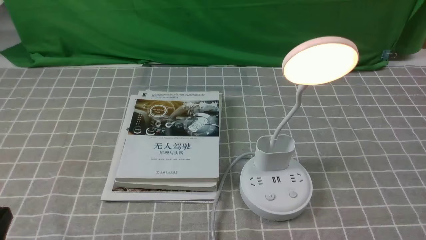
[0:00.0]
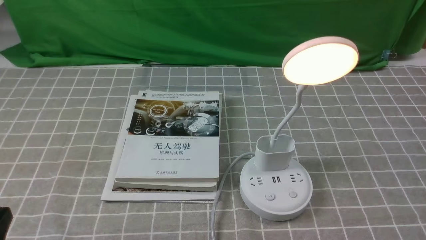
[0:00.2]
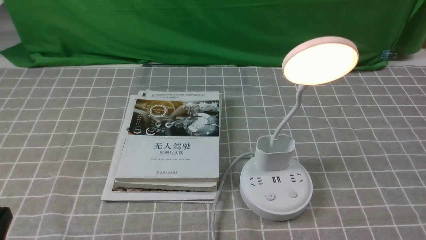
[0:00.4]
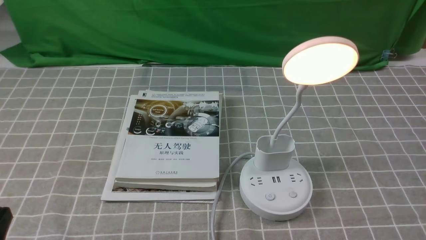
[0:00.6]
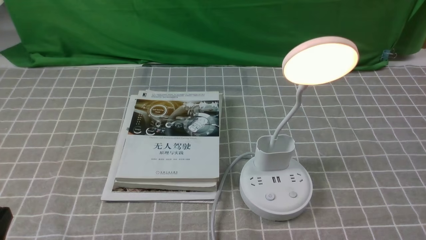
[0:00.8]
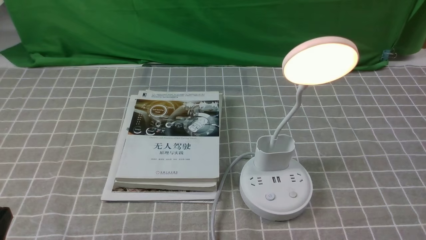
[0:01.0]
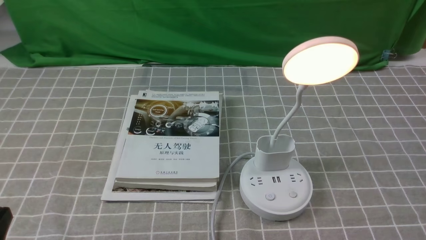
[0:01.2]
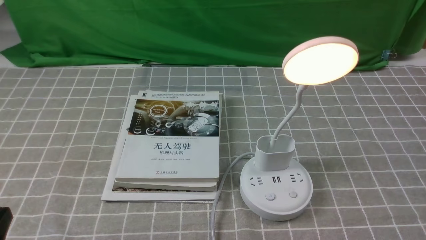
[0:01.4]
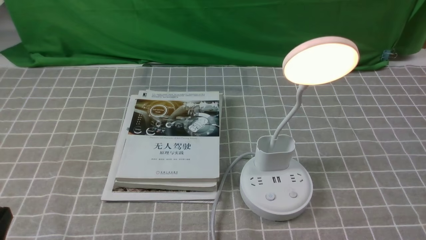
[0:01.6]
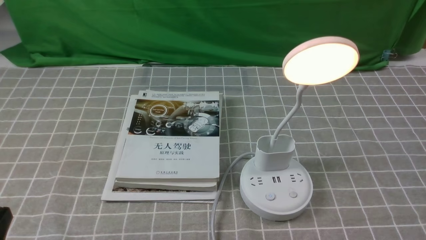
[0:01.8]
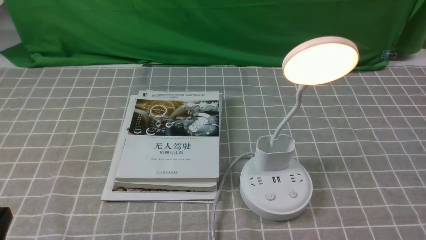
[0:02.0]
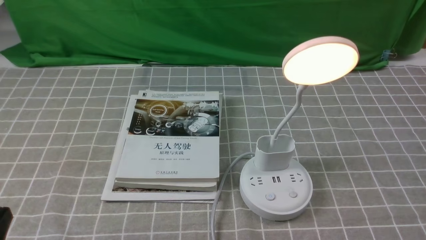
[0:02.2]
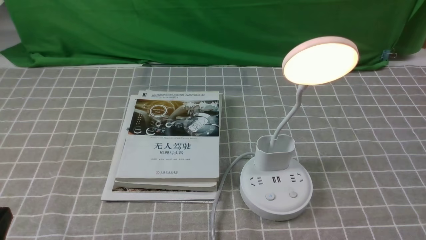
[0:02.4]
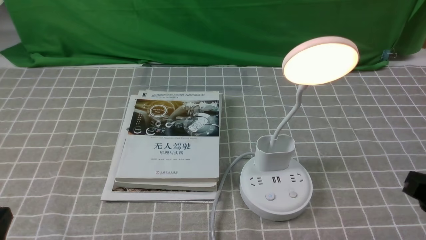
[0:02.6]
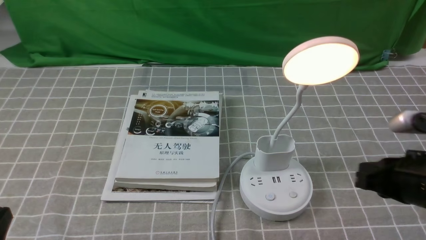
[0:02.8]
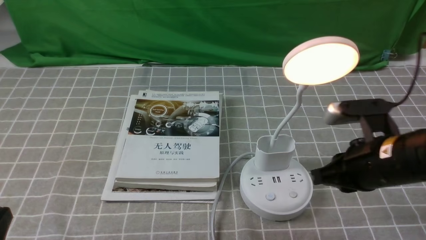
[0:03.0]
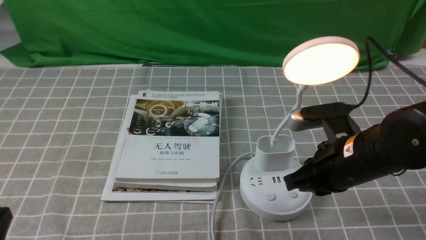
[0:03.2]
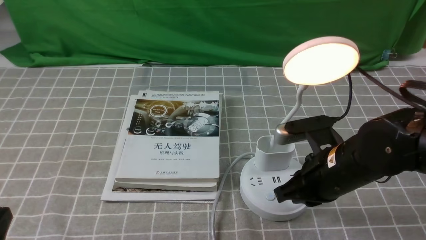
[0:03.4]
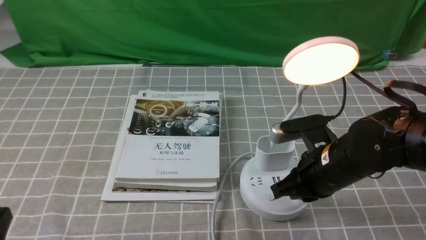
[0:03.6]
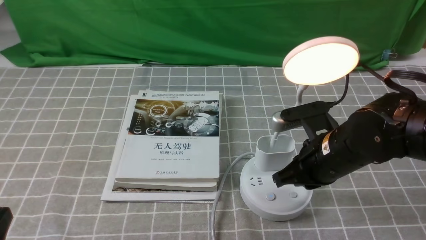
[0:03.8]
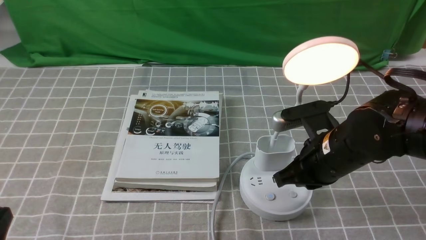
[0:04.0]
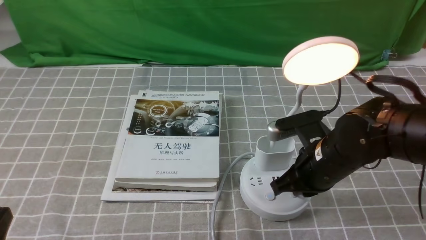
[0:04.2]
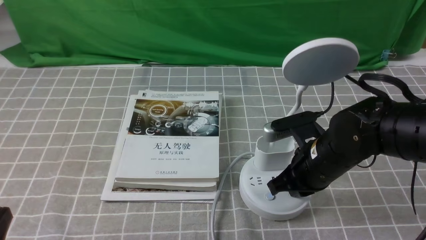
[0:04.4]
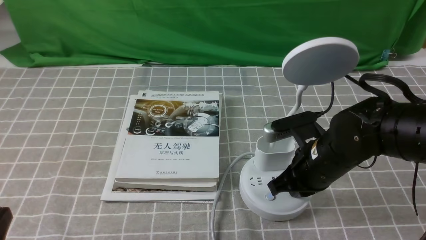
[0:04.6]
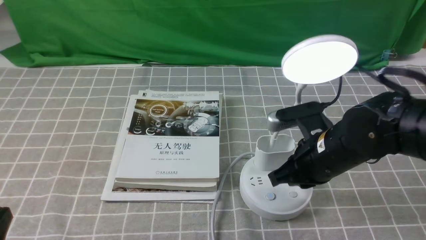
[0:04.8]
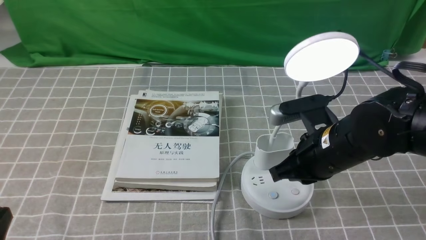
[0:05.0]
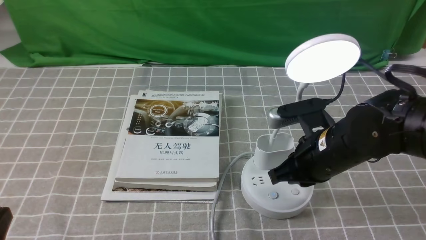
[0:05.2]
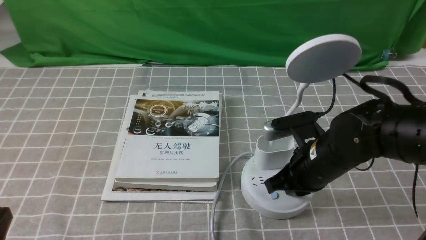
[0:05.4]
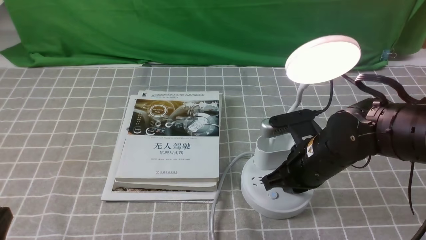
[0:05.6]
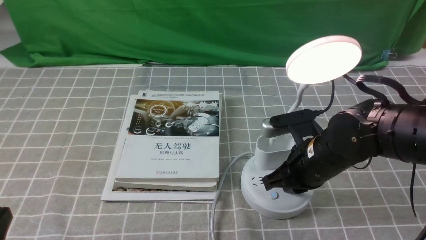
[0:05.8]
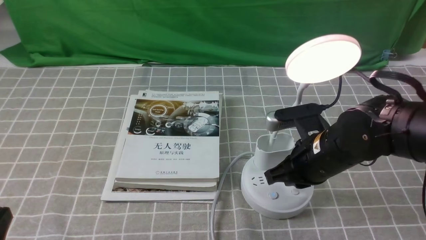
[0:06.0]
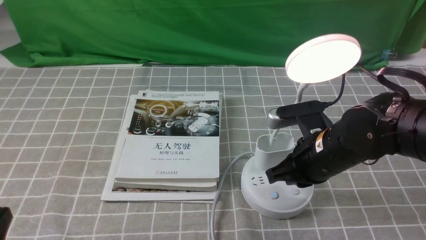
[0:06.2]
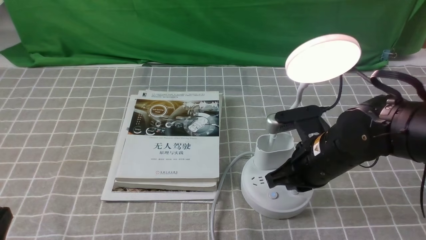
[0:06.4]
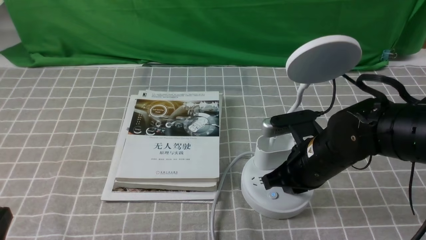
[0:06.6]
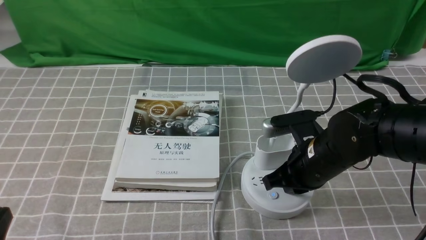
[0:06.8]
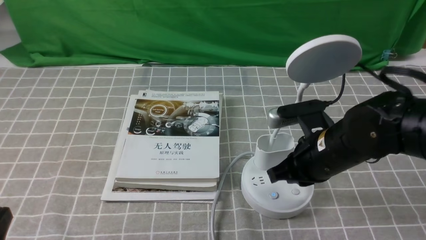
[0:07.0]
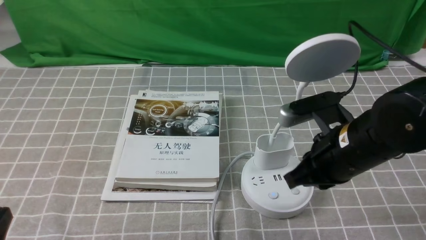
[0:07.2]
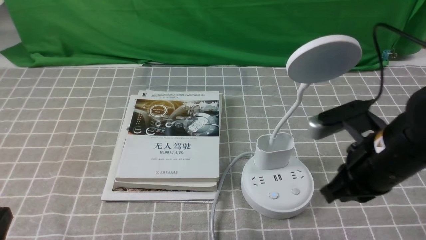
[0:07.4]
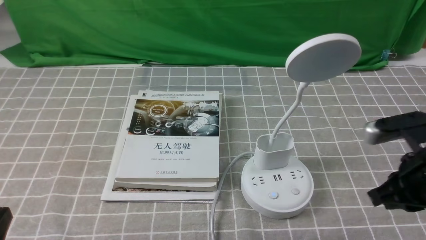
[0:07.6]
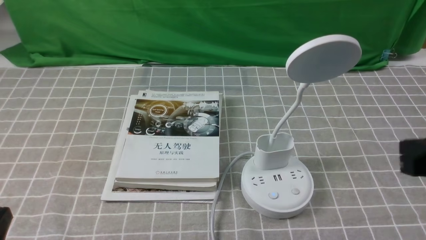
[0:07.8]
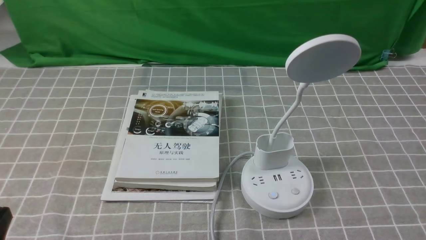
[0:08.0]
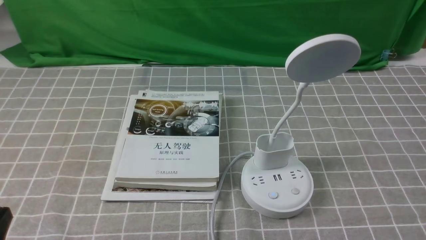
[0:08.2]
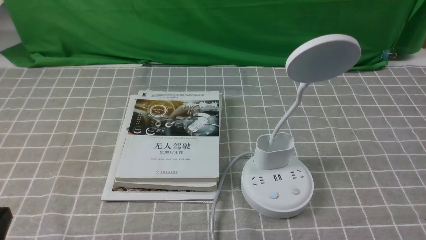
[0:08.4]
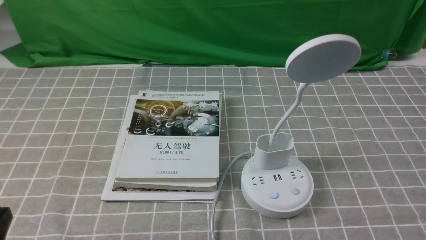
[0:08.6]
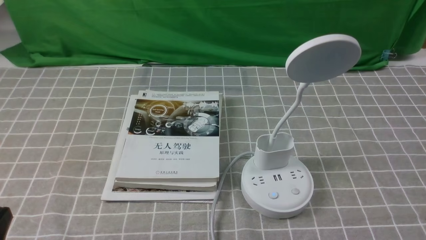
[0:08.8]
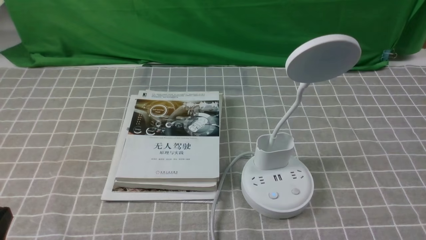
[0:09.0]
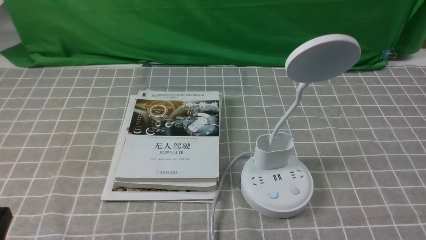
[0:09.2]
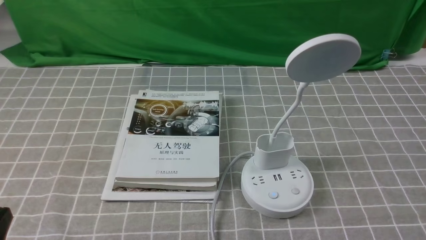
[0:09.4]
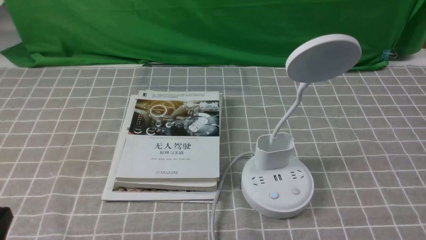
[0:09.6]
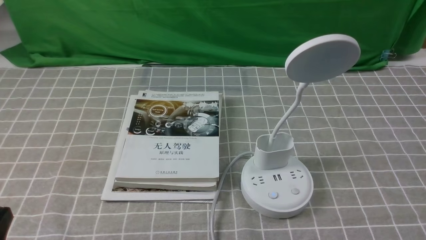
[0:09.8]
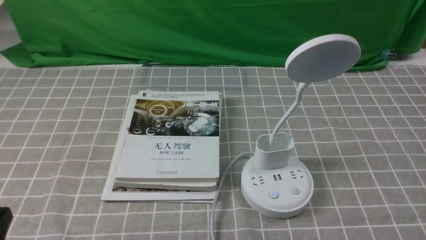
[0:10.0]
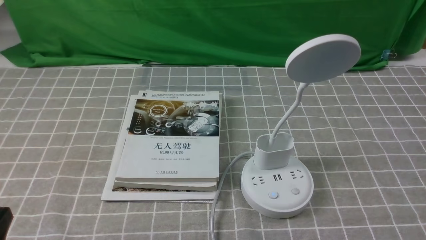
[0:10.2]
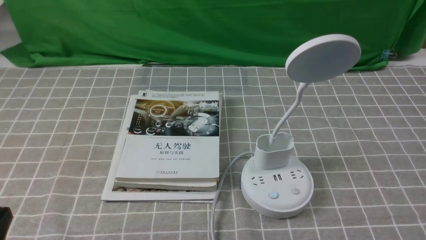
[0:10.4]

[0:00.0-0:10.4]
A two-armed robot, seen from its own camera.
Task of the whole recording: turn off the desk lamp on the grey coffee tablecloth by hand.
Step, 0:00.0 to 0:06.8: use the right arm to press the button switch on the lamp holder.
0:01.4 to 0:03.0: The right gripper is displaced forward and to the left by about 20 cm, and closes.
0:03.0 to 0:04.4: The right gripper travels to the left by approximately 5 cm.
0:04.4 to 0:06.0: The grippers move only a little.
0:06.0 to 0:07.4: The right gripper is displaced to the right and upward by about 10 cm.
0:07.4 to 0:09.0: The right gripper goes some 15 cm backward and to the right.

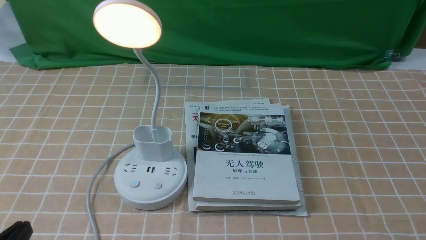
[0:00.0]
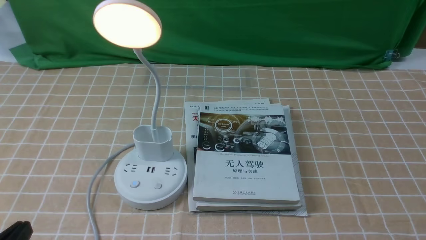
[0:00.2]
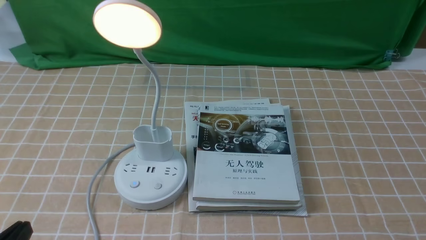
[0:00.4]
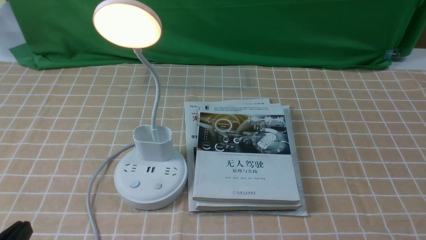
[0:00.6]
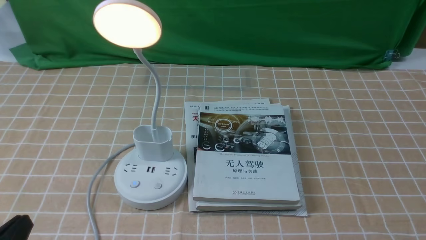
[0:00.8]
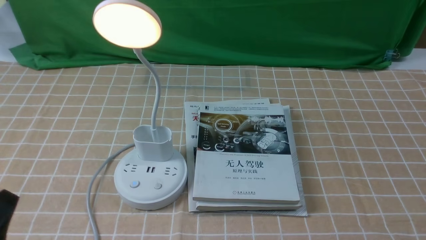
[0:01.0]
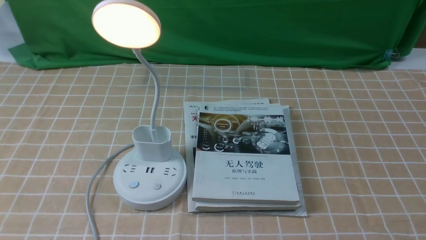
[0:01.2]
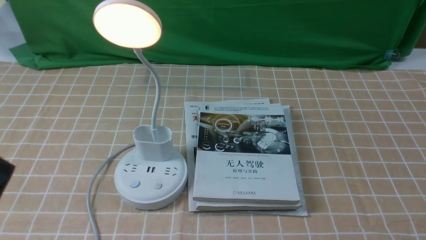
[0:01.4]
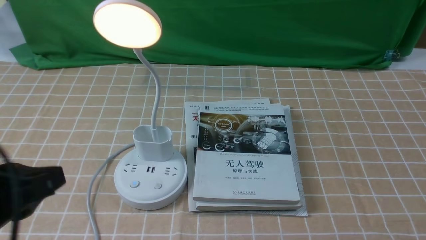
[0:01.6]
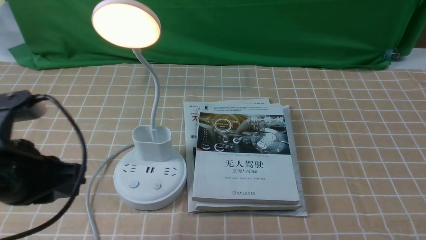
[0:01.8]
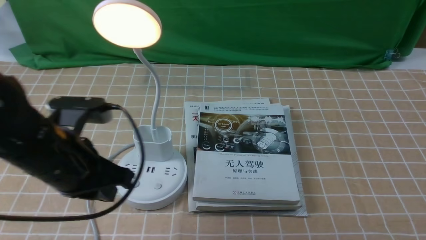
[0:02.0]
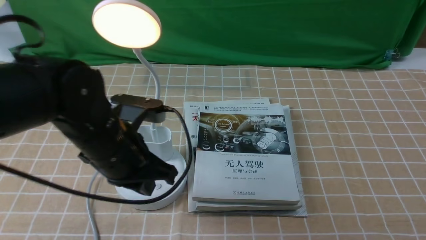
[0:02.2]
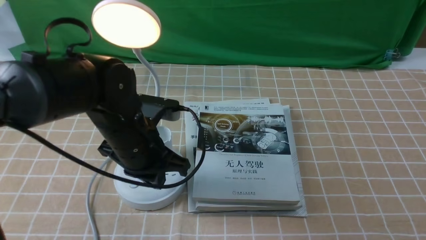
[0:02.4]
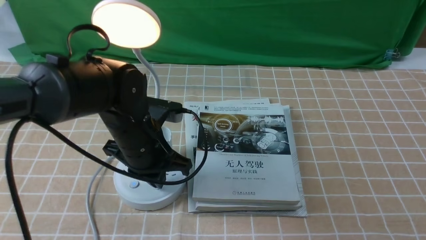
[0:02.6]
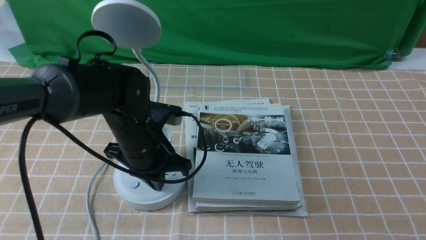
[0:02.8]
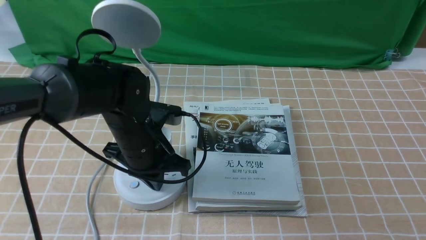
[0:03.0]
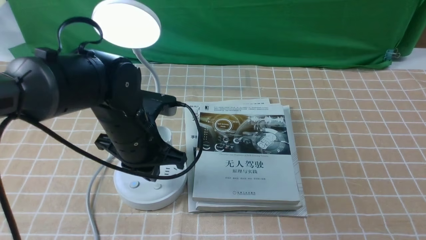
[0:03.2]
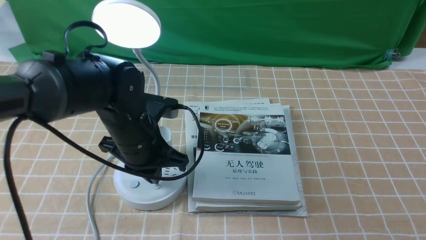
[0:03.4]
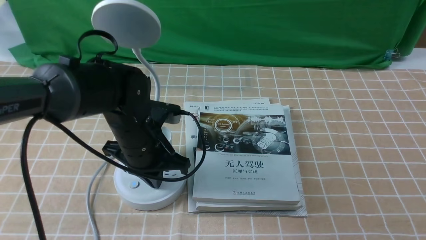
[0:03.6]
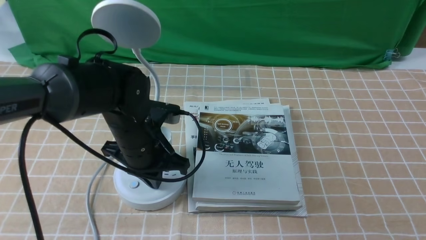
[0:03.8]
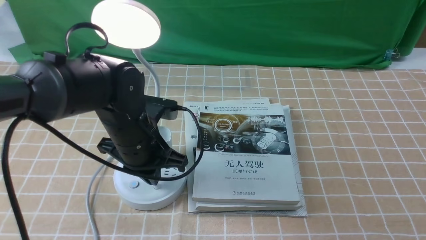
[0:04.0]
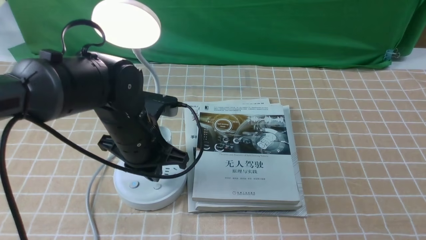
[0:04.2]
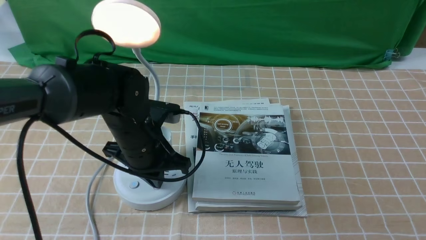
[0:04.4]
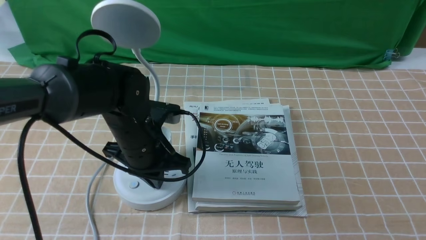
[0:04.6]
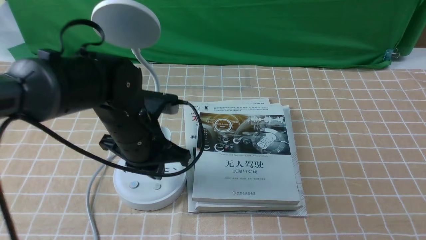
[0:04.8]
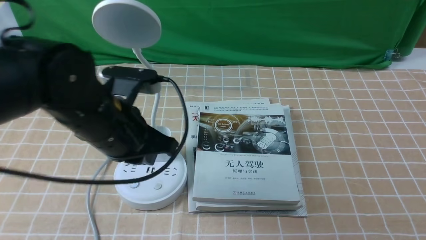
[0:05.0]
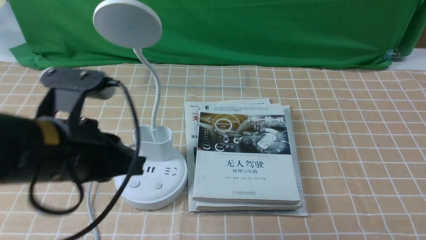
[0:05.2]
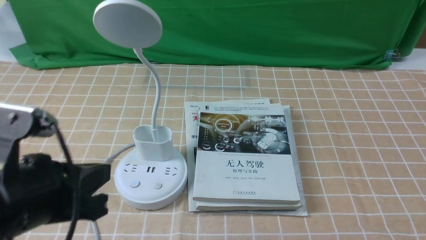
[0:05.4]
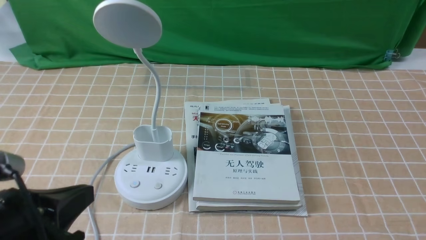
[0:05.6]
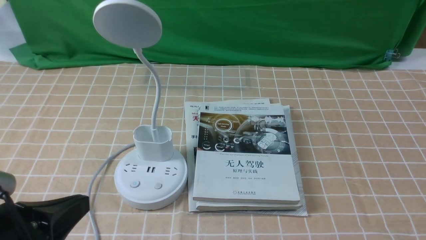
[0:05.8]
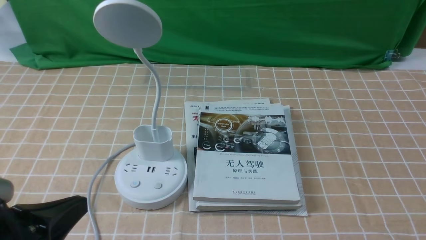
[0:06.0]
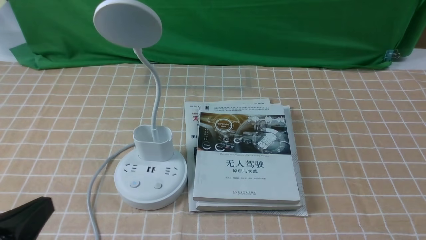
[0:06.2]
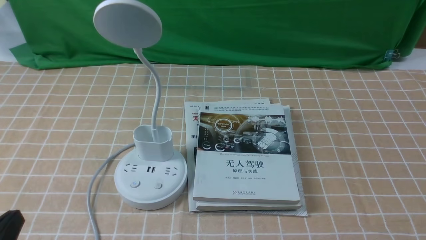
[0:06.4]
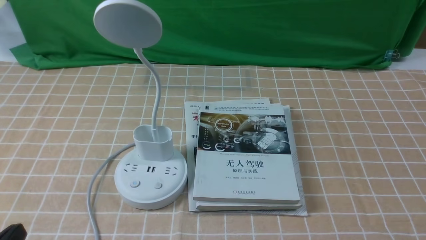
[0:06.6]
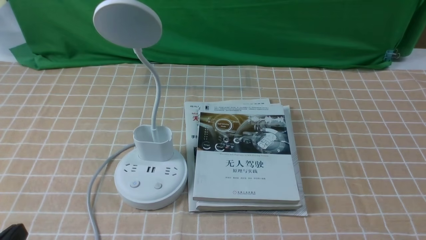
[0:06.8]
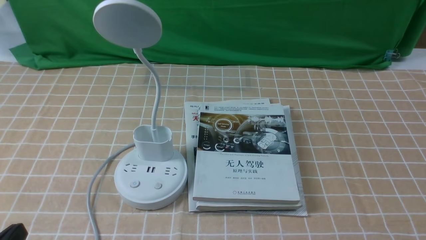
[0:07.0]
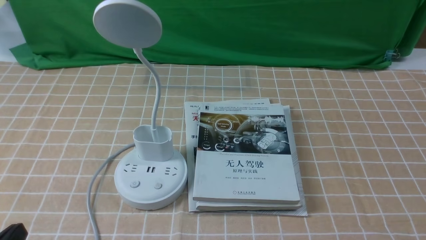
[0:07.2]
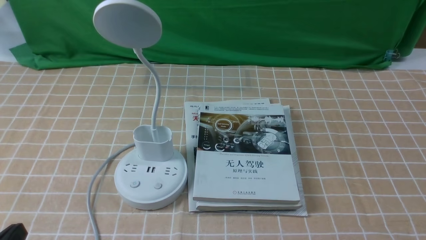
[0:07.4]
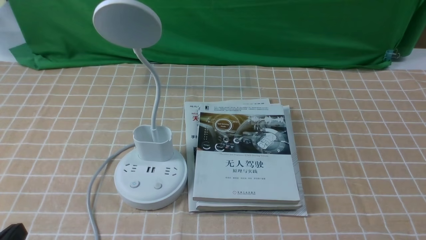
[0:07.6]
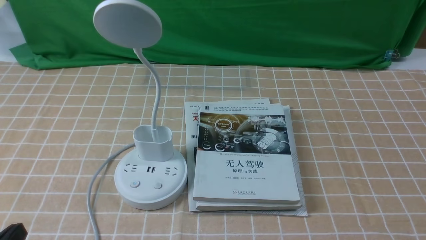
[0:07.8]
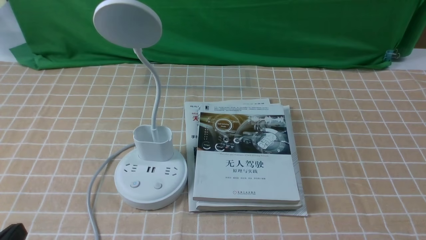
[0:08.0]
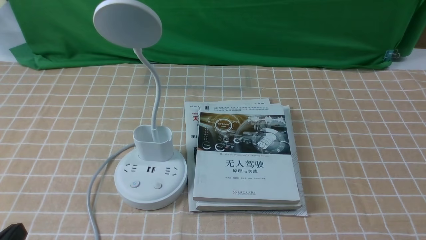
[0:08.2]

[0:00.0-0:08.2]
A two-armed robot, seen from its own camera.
Task of the whole recording: turn off the desk lamp on the light coffee tablecloth by hand.
Step, 0:00.0 to 0:04.8: use the left arm to press the button switch on the lamp holder.
0:00.0 to 0:01.6: The left gripper shifts about 15 cm upward and forward.
0:01.6 to 0:03.2: The left gripper shifts approximately 25 cm forward, to the right and downward, and closes its fingers.
0:03.2 to 0:05.0: The left gripper travels upward and backward by roughly 10 cm.
0:05.0 to 0:06.6: The left gripper is displaced backward, to the left and downward by some 25 cm.
0:06.6 to 0:08.2: The two grippers keep their place.
